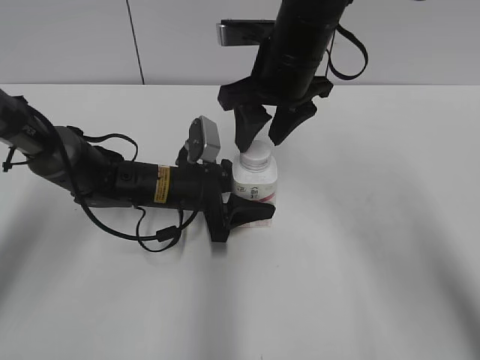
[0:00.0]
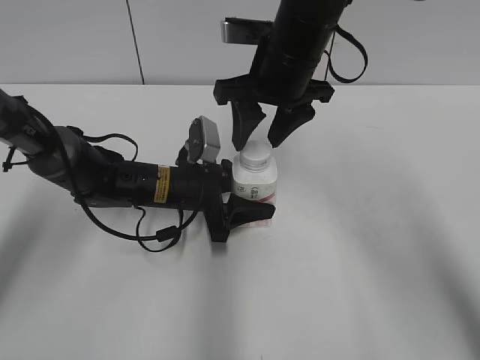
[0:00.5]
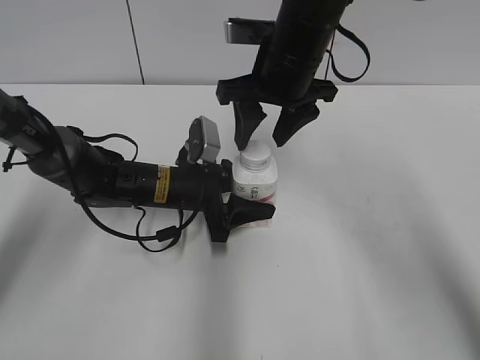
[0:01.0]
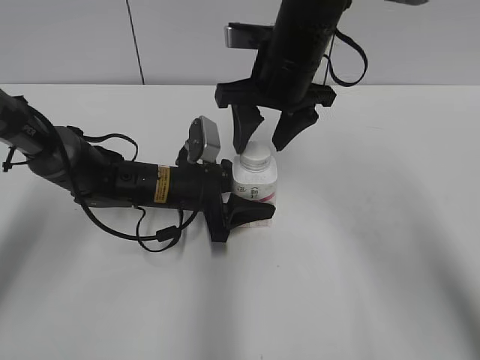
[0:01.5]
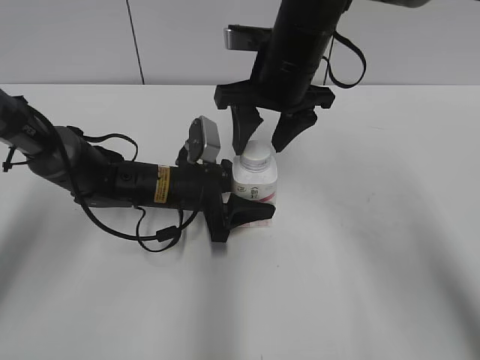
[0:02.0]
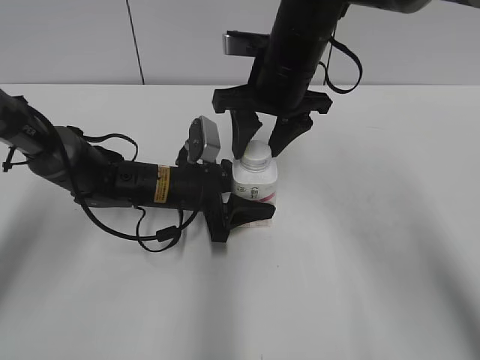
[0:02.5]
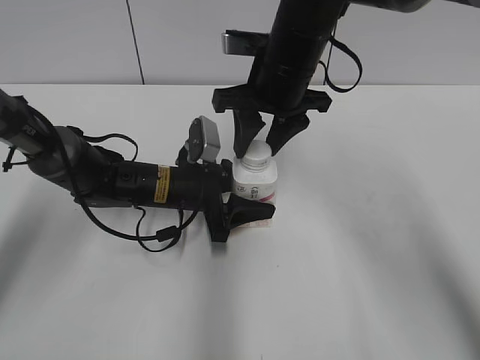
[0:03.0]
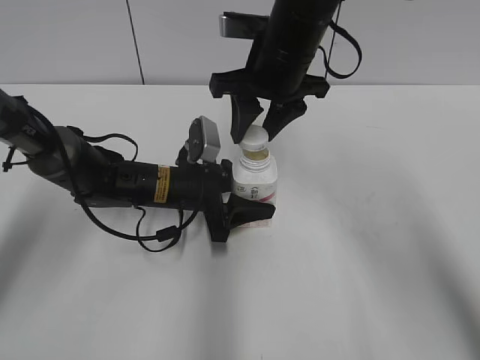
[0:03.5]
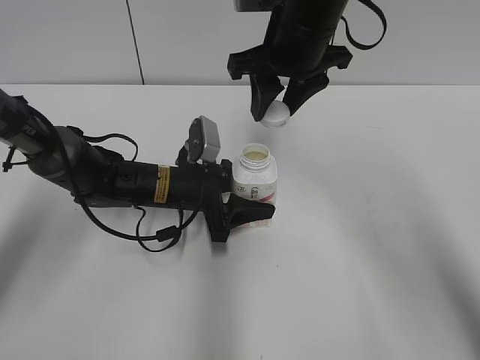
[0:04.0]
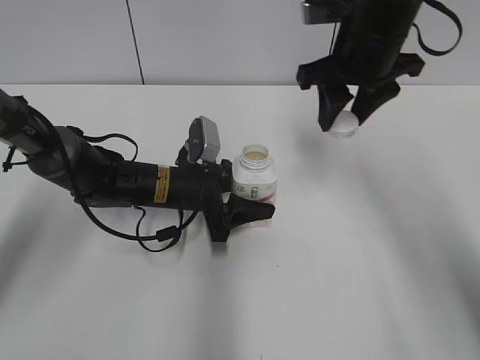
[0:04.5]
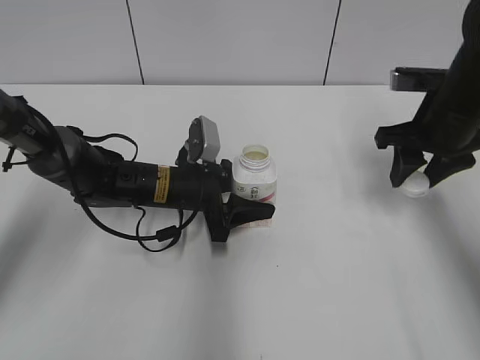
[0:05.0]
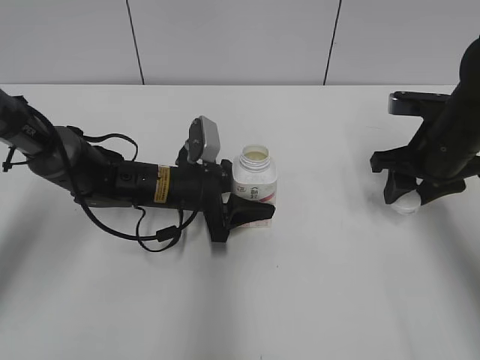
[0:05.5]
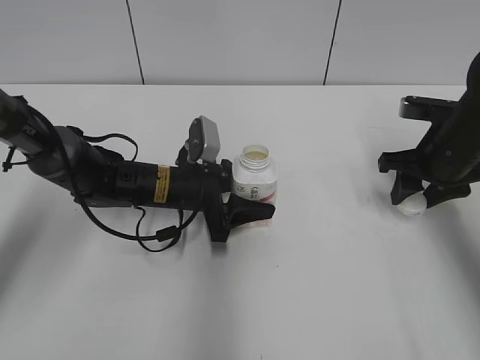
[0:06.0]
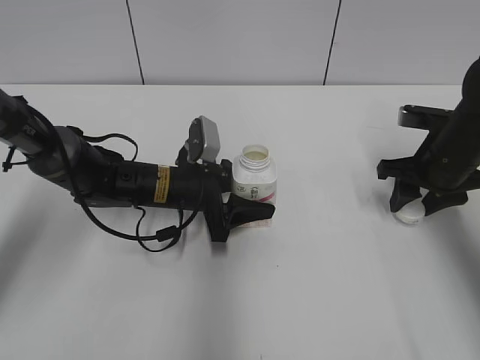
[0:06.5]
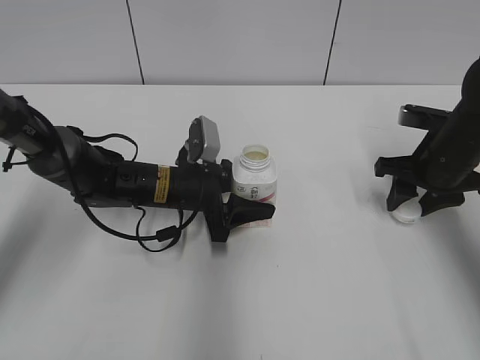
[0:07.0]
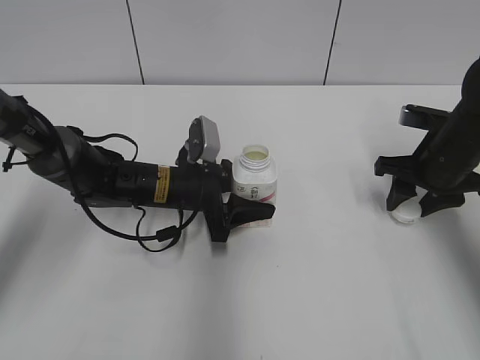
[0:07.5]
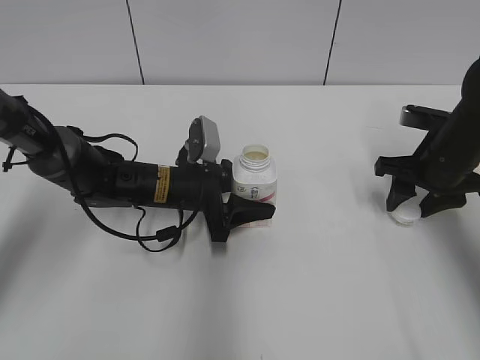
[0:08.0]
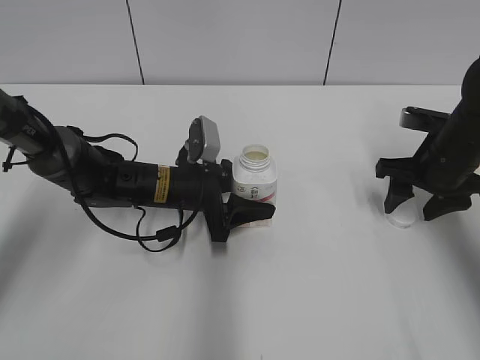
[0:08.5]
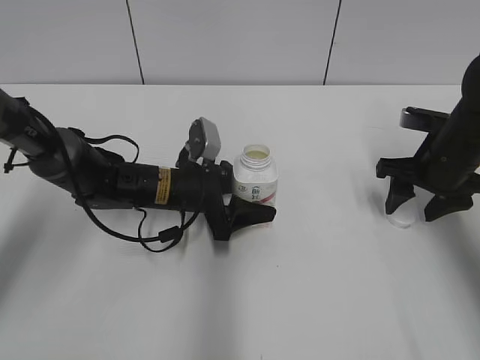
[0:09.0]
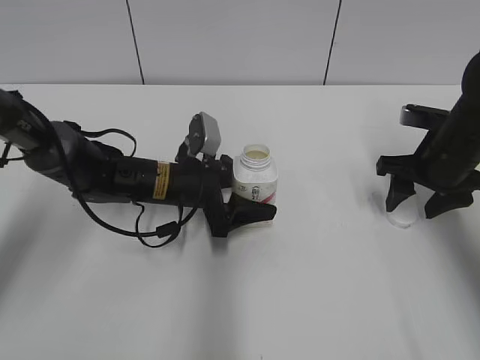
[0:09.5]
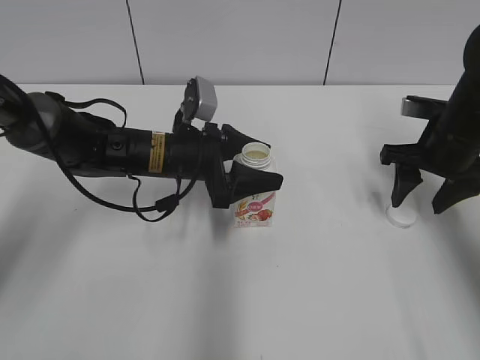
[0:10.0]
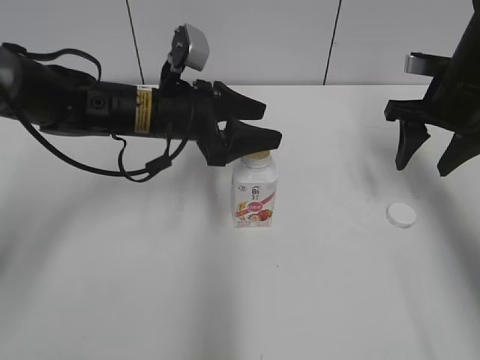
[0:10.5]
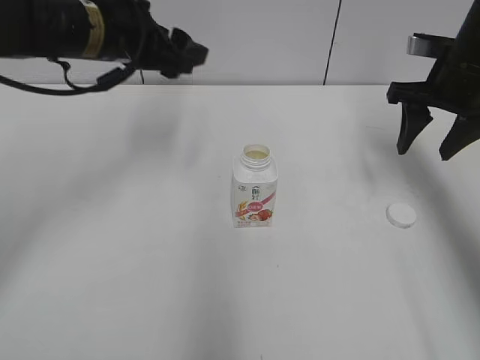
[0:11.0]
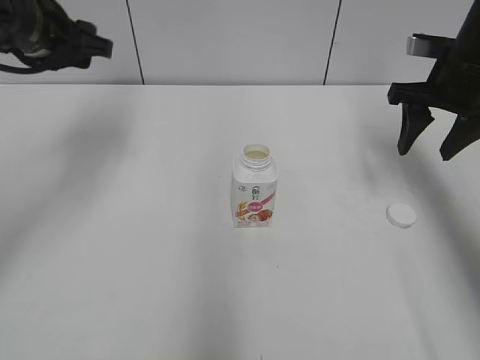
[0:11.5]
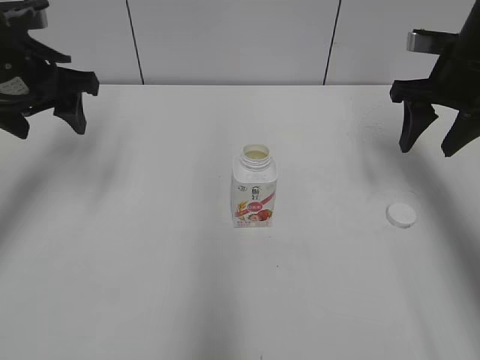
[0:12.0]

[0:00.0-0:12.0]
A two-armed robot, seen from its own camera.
Step, 0:03.5 to 0:08.0: Place the bottle cap on the right.
Step, 0:08.5 to 0:09.0: Place the Yili Changqing with the left hand.
0:00.0 to 0:02.0: The grippers move only a little.
0:02.0 to 0:04.0: The right gripper closes up.
0:04.0 to 0:06.0: The right gripper travels to the right and downward by about 25 cm.
0:06.0 to 0:08.0: The grippers make only small movements.
0:08.0 to 0:10.0: The left gripper moves upward, some 5 cm.
0:10.0 to 0:12.0: The right gripper goes approximately 10 cm upward; the left gripper travels to the left and upward by approximately 20 cm.

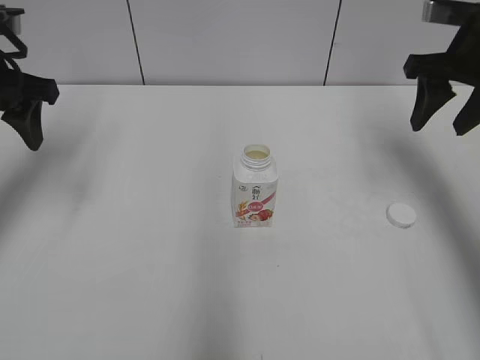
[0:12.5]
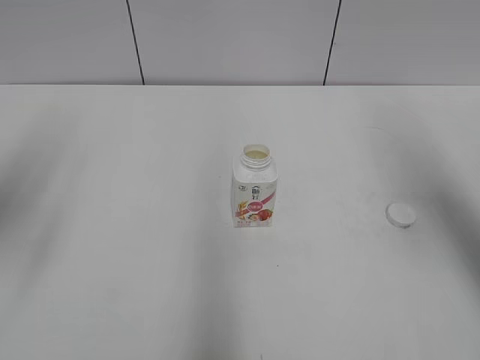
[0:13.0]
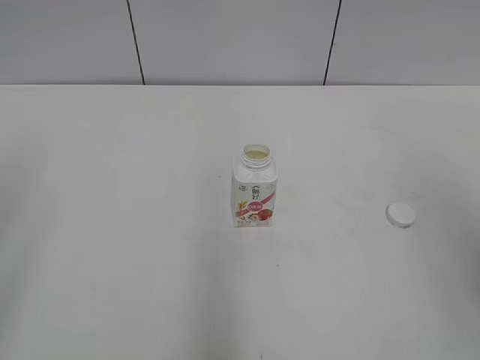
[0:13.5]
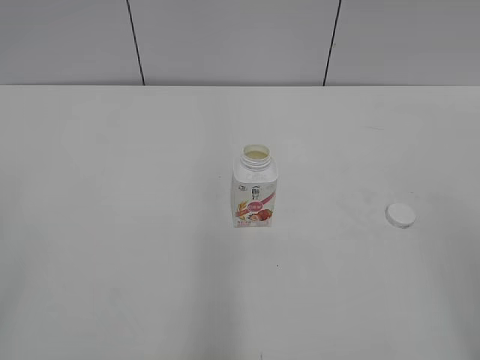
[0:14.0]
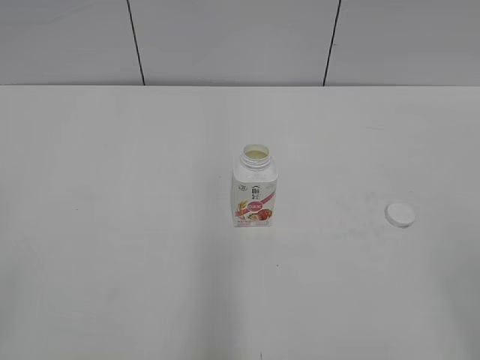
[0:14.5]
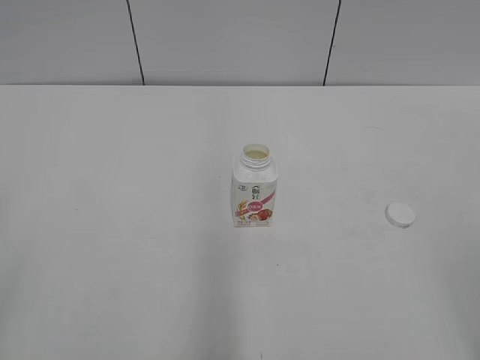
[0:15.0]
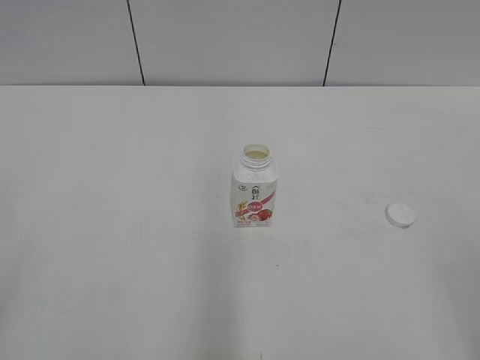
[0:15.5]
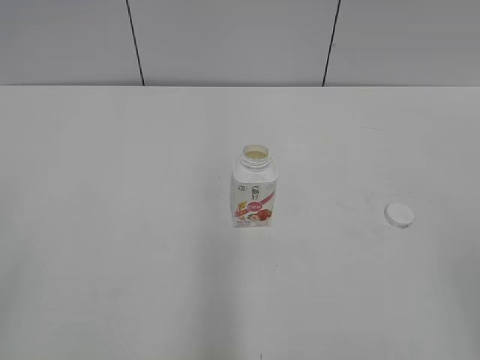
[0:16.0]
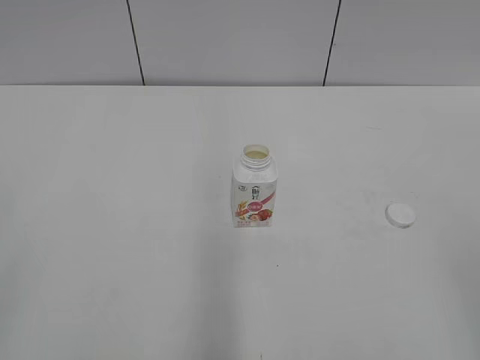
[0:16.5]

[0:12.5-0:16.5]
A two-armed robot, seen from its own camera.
0:12.5 to 0:14.5: The two grippers go approximately 35 cm backward.
